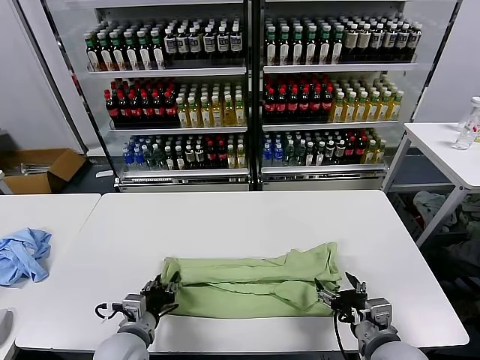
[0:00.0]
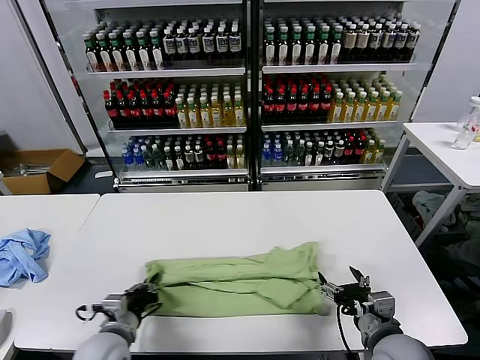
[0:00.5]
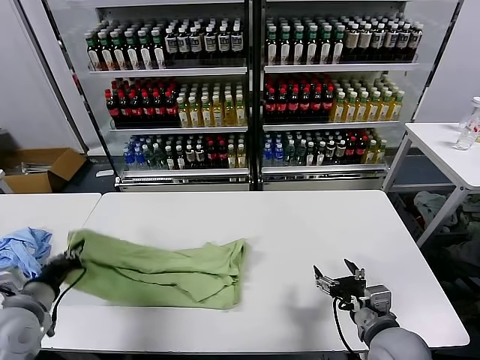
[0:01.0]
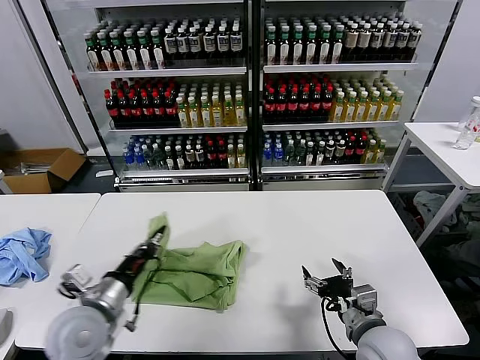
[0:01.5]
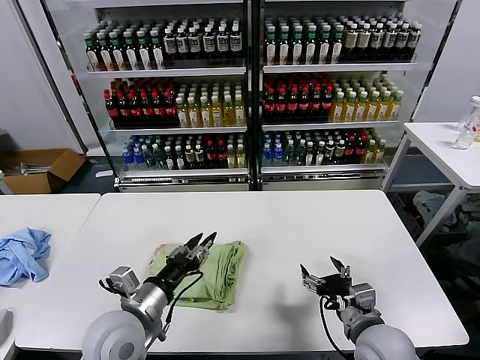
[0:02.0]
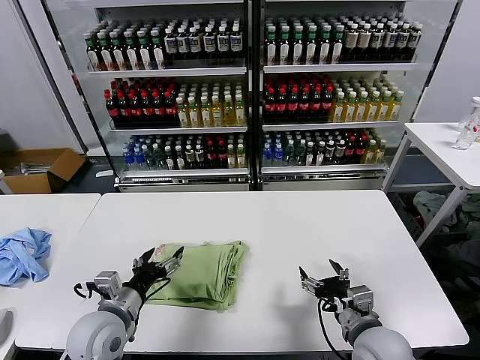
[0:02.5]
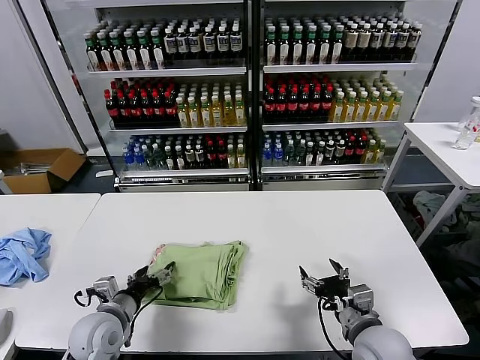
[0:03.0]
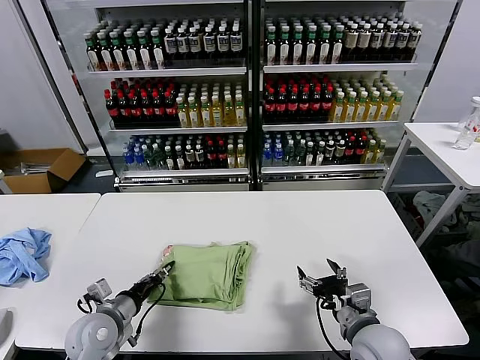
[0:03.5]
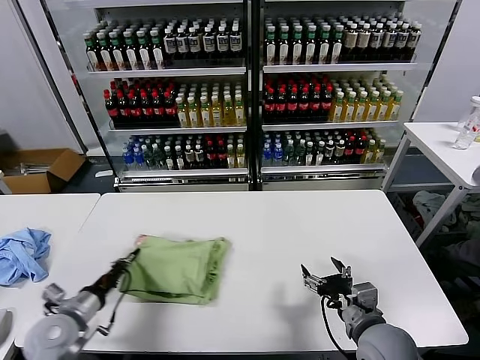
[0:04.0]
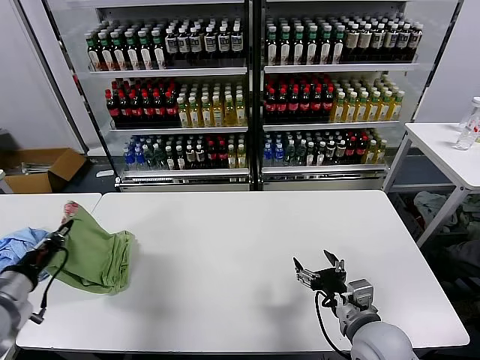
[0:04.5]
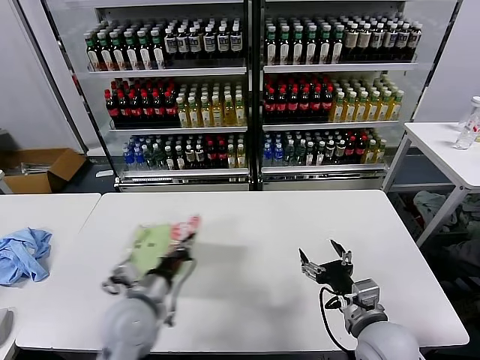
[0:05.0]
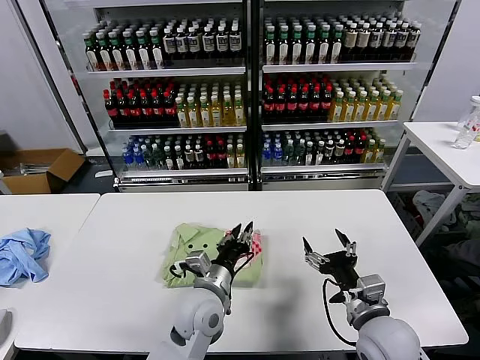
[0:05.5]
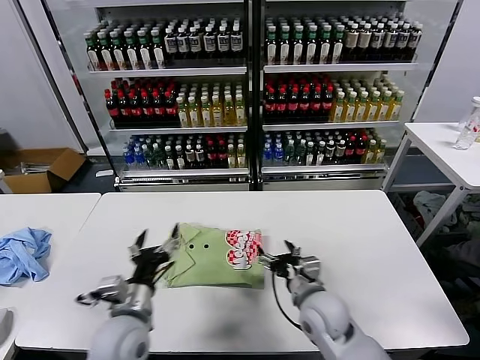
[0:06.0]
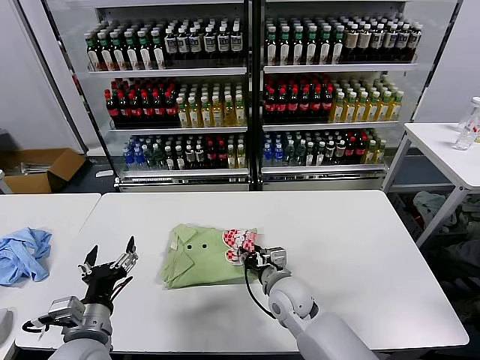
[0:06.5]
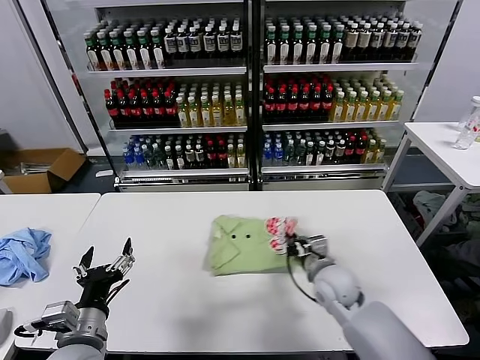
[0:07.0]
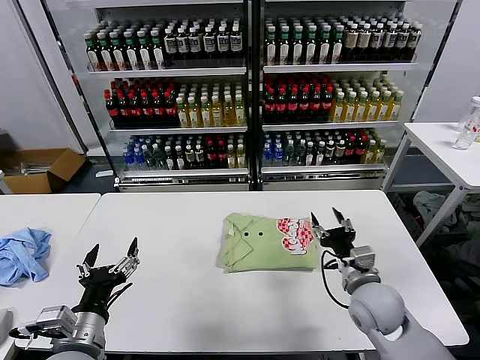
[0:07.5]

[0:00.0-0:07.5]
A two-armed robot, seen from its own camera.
Task of the whole recording: fold and organize the clothes.
Step, 0:00.5 to 0:01.5: use the left gripper to drag the left edge of the fabric to the left and folds it over the right edge.
Step, 0:02.5 to 0:05.5: Flip the folded clothes over with left gripper.
Step, 0:06.0 to 0:07.0: Drag the clothes to the center of the table.
0:00.0 to 0:02.0: The left gripper moves upward, roughly 10 cm, moves some 15 cm to the left and comes back, and closes and opens again.
0:02.0 to 0:04.0: The left gripper shifts roughly 20 cm to the left and downward, and closes up.
0:04.0 to 0:05.5: The left gripper travels to the right by some 30 cm.
0:05.5 to 0:07.5: The left gripper travels to the left and backward by some 20 cm, and opens, while the right gripper goes approximately 10 cm forward, reaches about 15 cm to the left, then returns, and closes up.
